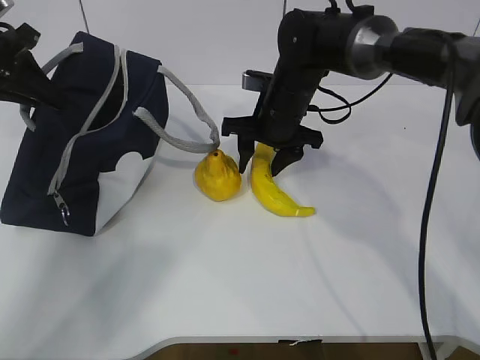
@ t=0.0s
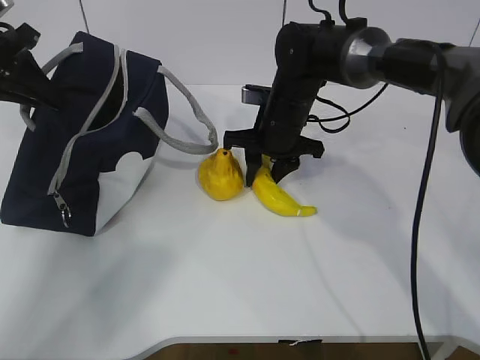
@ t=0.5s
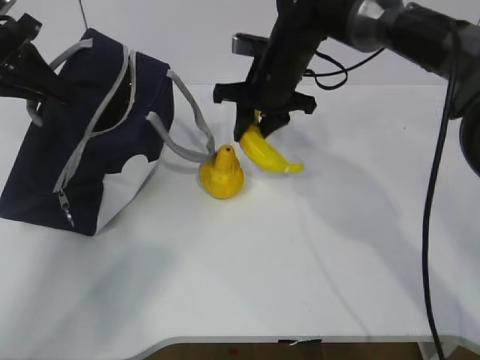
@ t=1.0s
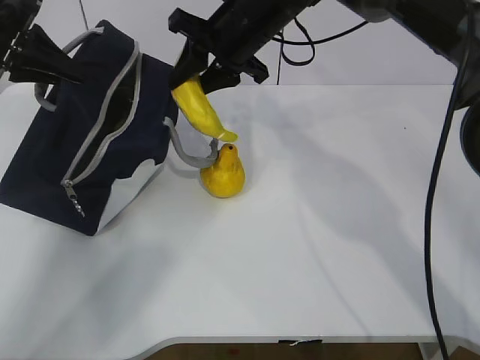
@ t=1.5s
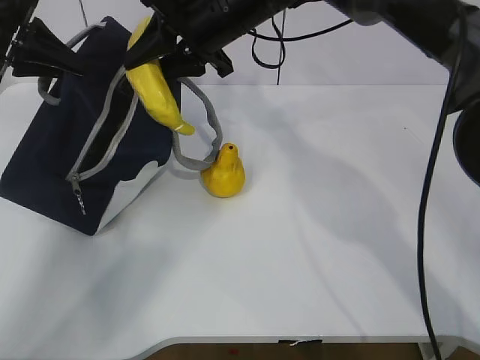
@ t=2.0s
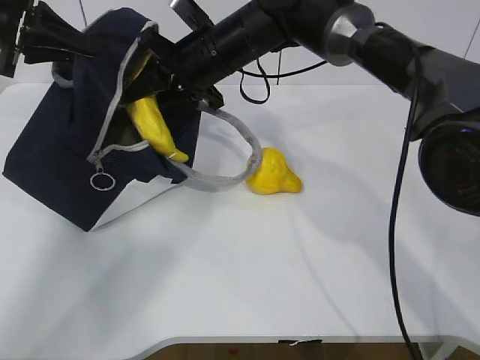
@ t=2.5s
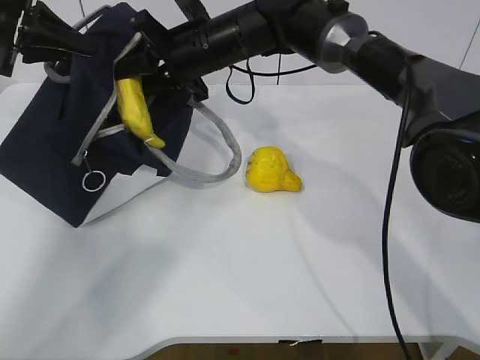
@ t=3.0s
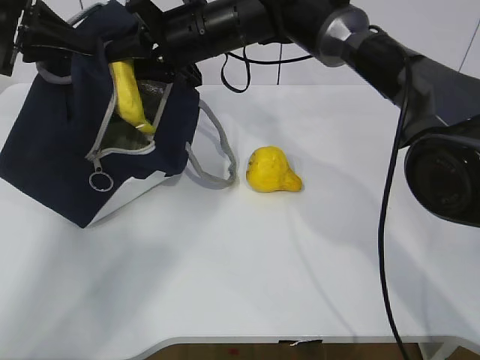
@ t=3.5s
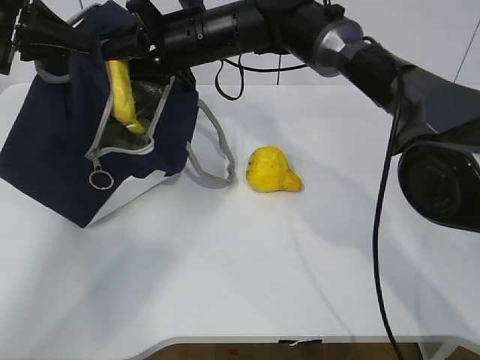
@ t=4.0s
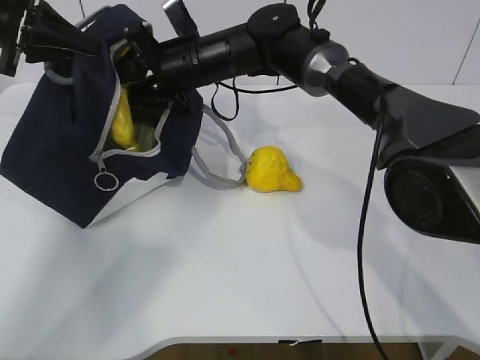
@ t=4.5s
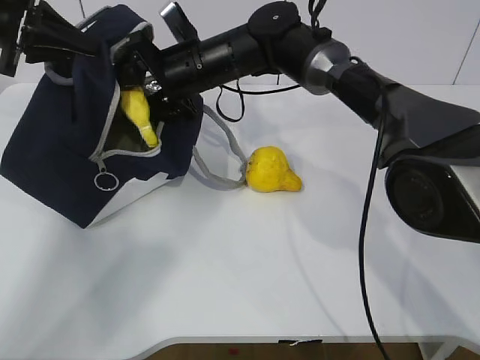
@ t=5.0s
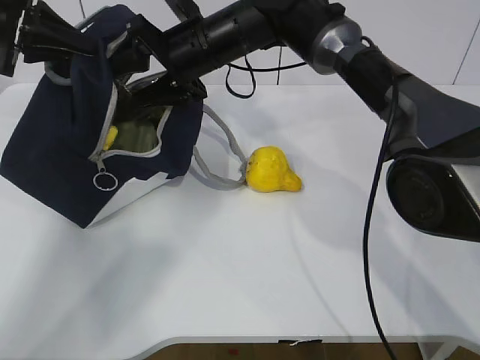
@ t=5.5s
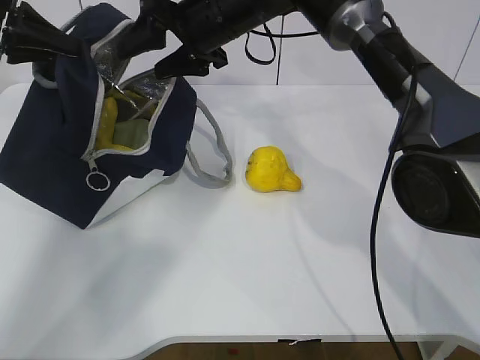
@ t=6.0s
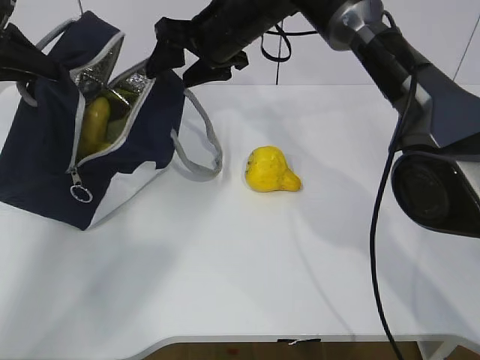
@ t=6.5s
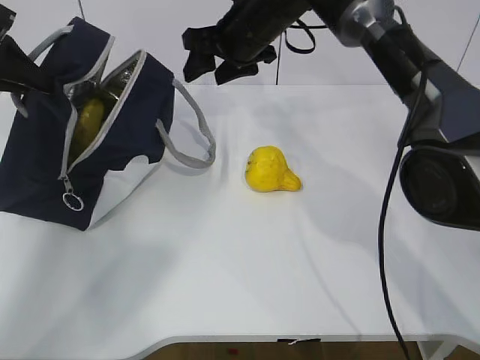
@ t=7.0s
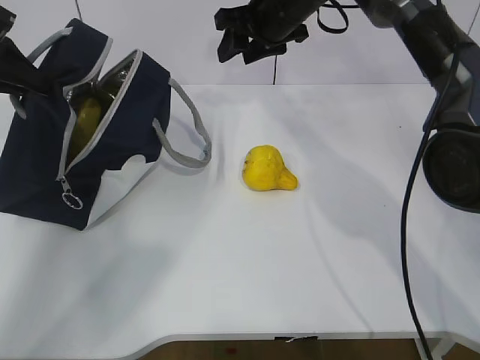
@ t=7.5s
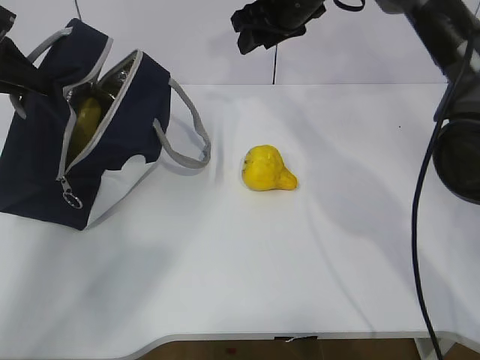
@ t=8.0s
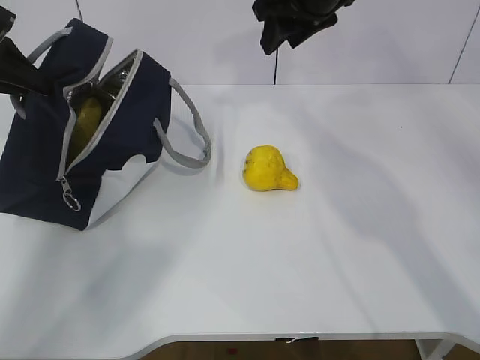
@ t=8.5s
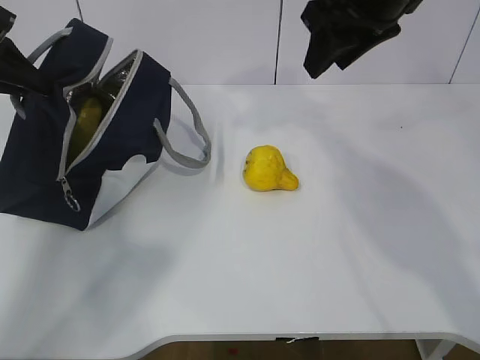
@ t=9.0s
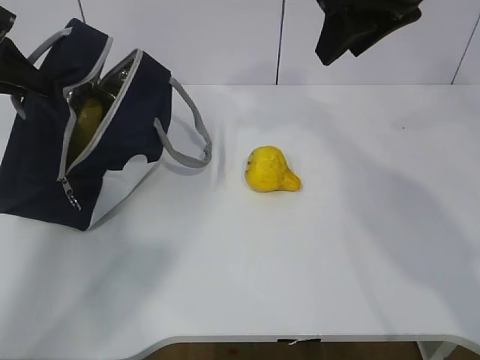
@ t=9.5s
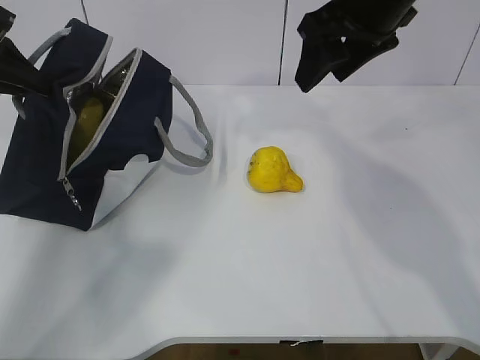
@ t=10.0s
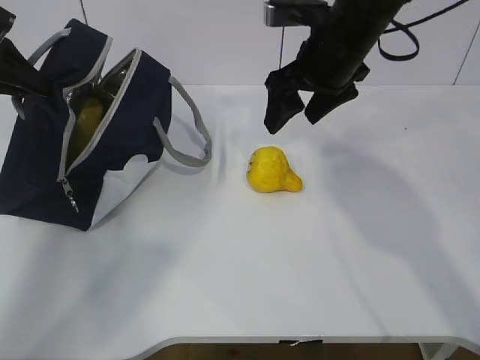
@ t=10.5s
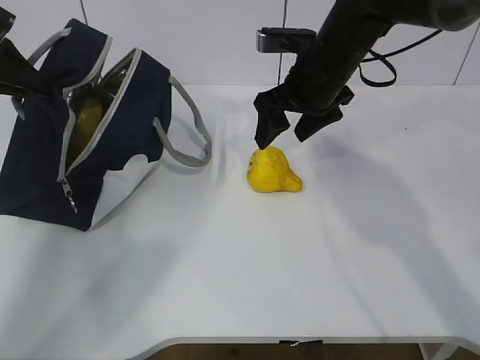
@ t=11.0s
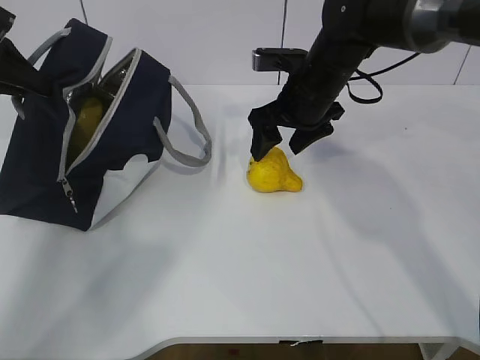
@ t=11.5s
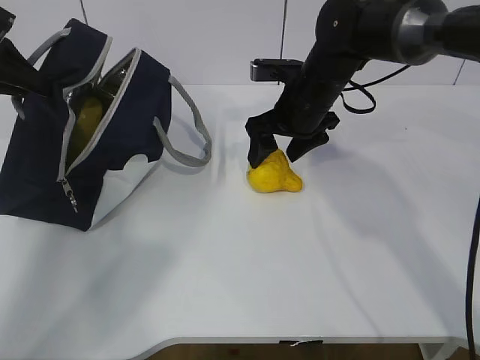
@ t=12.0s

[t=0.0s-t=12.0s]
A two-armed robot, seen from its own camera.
Step, t=1.5s to t=7.0s: Grab the pear with your right hand.
Step, t=10.5s to t=11.5s: Grab the lunch bag with your right hand.
t=0.0s to t=2.0s: The right gripper shifts some 15 cm upward and to the left.
t=2.0s to t=4.0s: The right gripper shifts by some 5 cm.
t=4.0s to t=6.0s: The right gripper opens its fingers.
t=6.0s to t=8.0s: The right gripper moves to the right, some 10 cm.
t=8.0s to t=10.0s: The right gripper goes roughly 15 cm backward.
t=10.0s to t=12.0s: The right gripper goes roughly 20 cm downward and forward.

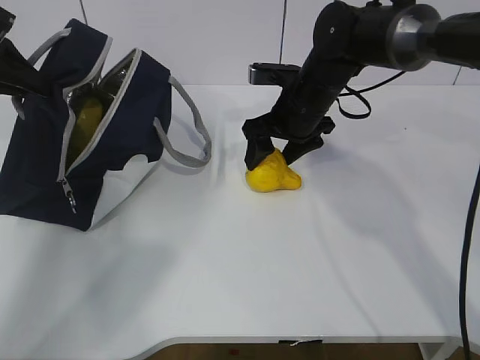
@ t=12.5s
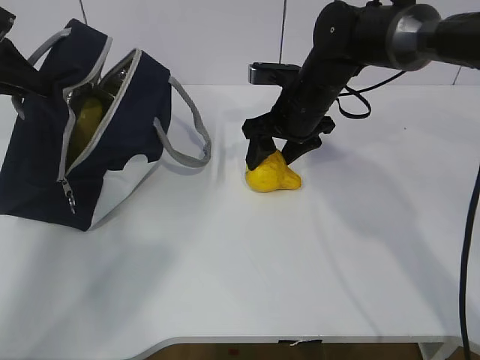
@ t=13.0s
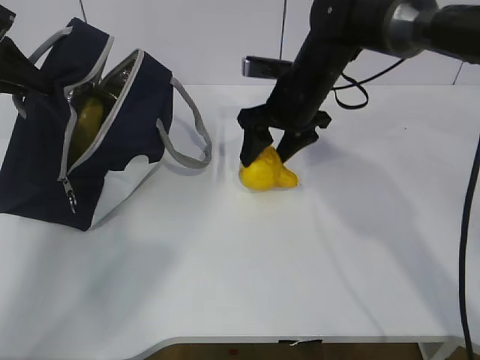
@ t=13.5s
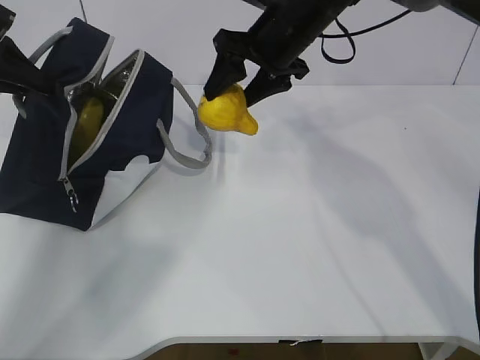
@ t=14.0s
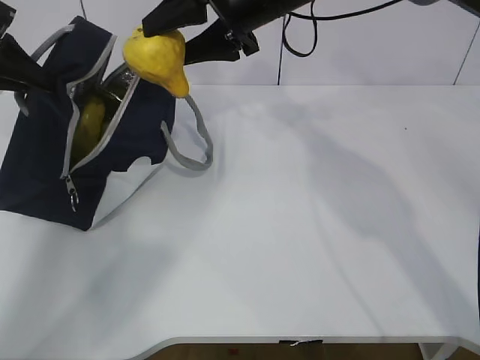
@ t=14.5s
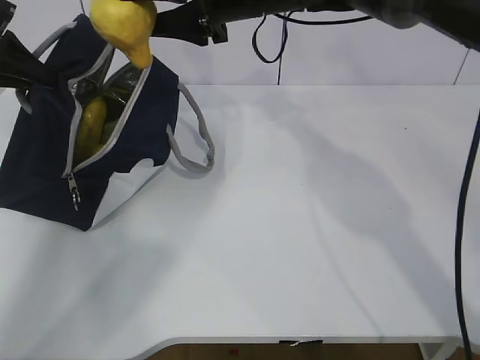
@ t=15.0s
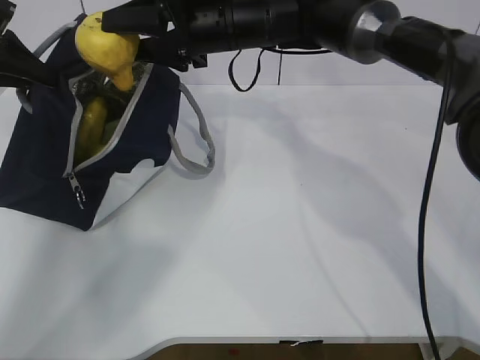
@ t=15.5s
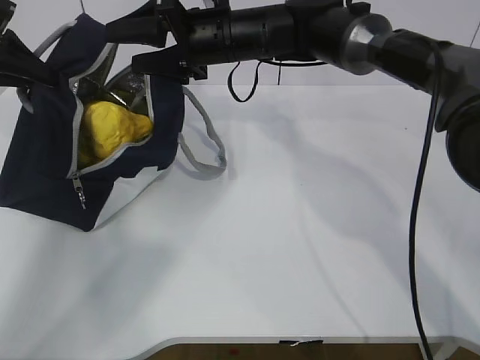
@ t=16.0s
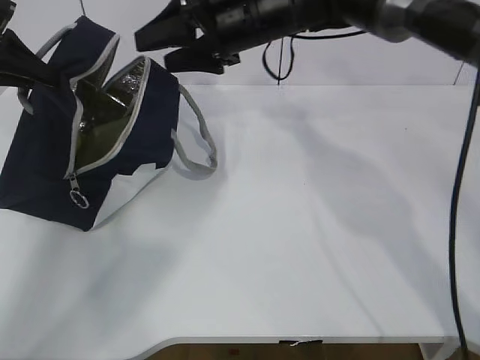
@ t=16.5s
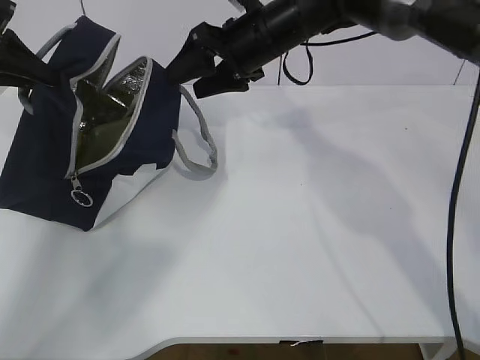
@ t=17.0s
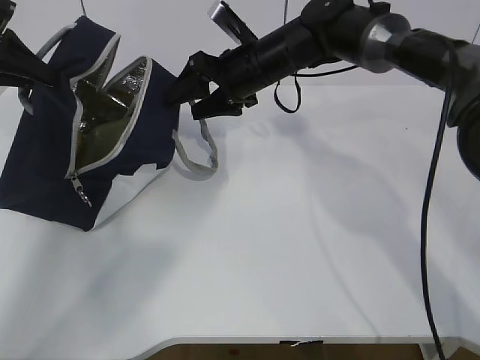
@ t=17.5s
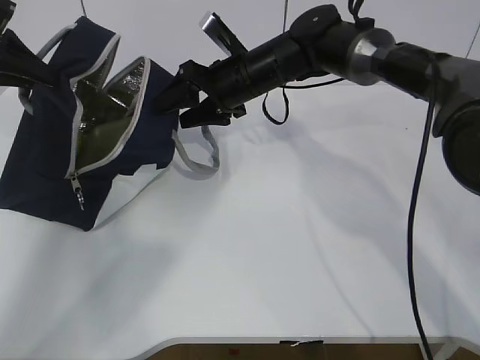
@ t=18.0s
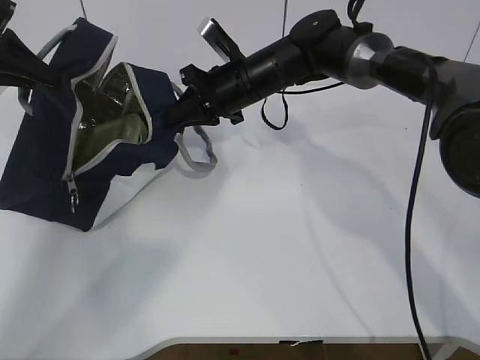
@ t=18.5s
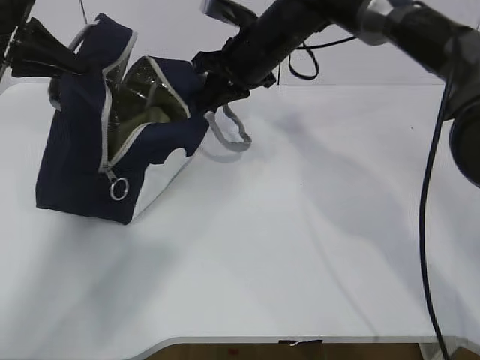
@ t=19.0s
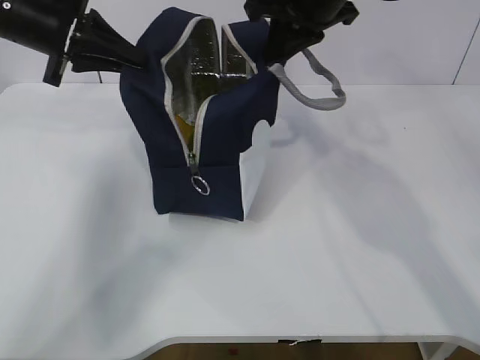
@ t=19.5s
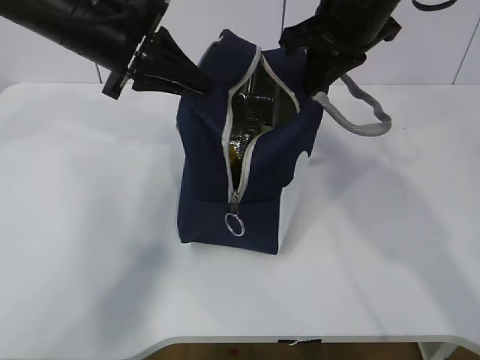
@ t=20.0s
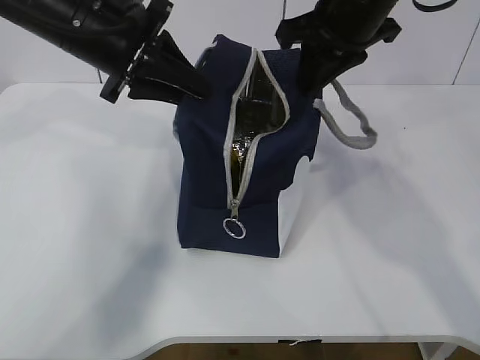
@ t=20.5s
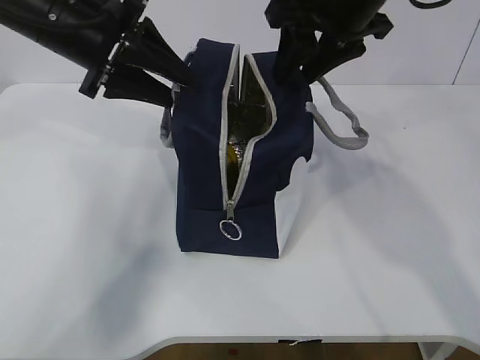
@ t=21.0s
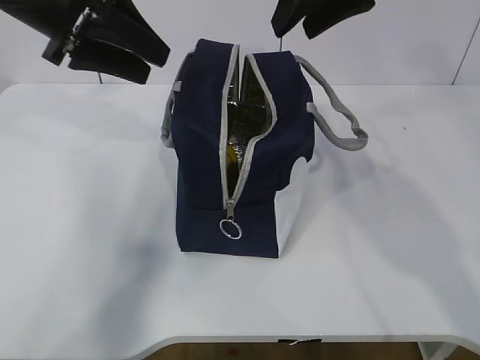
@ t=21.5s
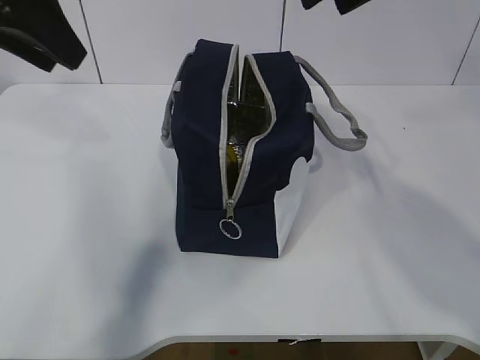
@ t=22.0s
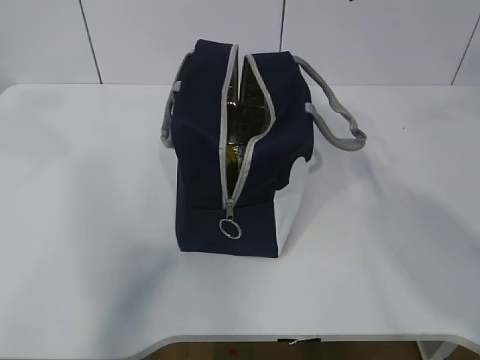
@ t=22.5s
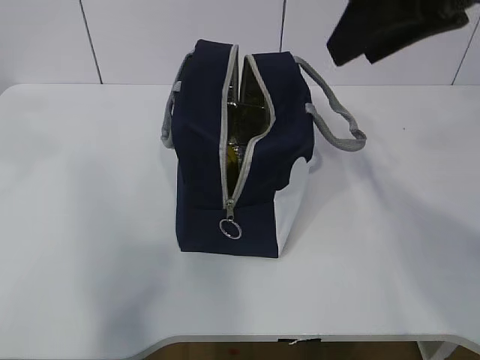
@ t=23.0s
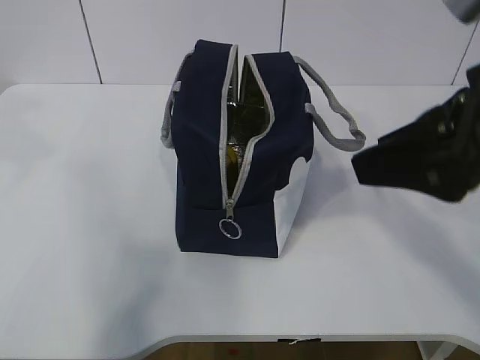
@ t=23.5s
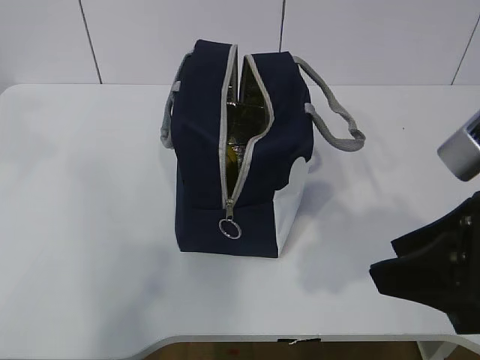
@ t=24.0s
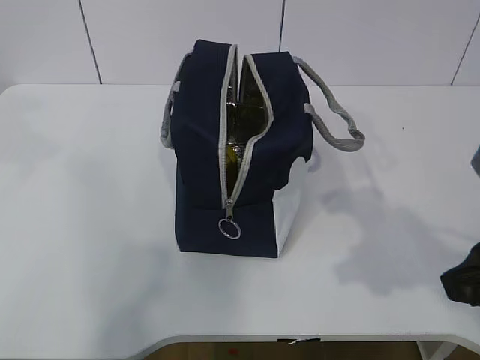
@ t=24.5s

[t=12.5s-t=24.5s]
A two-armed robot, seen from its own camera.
Step, t=12.5s to t=13.5s: Move the lunch bag to the right.
t=12.5s to t=14.5s: The right gripper moves upward, roughly 15 cm.
t=16.5s to t=18.5s: The right gripper heads downward, covering about 10 cm, and closes up.
t=18.5s to t=20.5s: The left gripper is displaced to the right by about 20 cm; the right gripper is displaced upward, to the right and backward by roughly 20 cm.
t=20.5s to t=22.5s: The left gripper is displaced backward, upward and to the left by some 20 cm; the right gripper heads upward and backward, covering about 15 cm, and opens its fingers.
t=22.5s to t=24.5s: The right gripper is displaced downward and backward by some 25 cm.

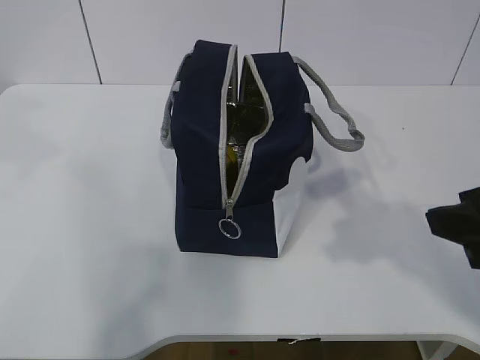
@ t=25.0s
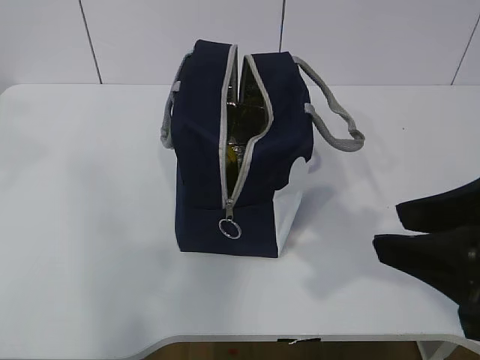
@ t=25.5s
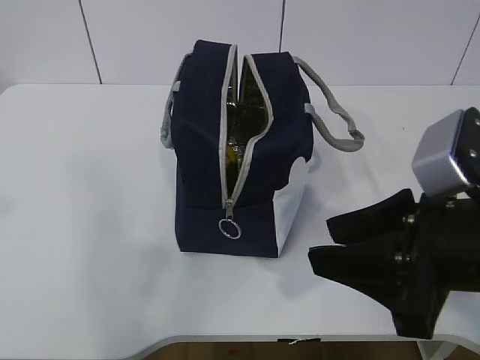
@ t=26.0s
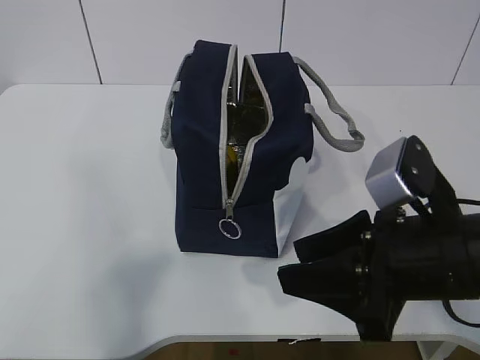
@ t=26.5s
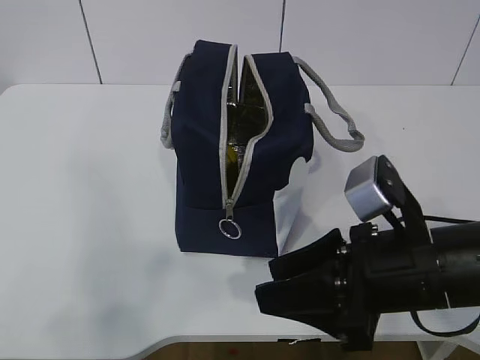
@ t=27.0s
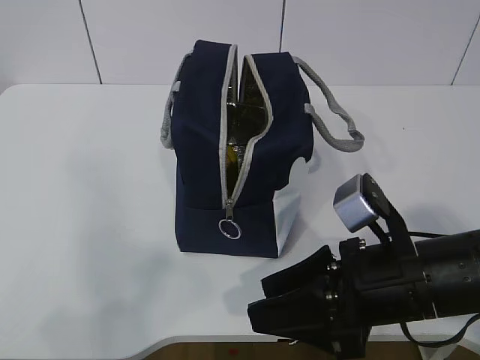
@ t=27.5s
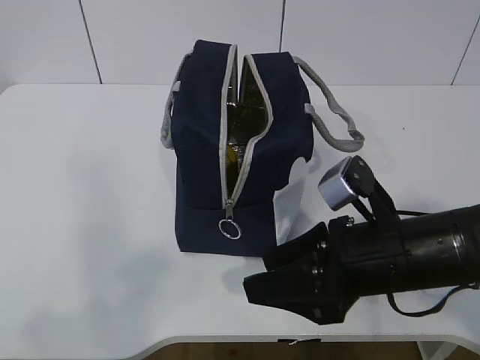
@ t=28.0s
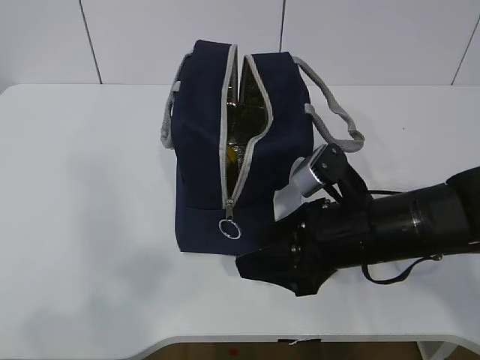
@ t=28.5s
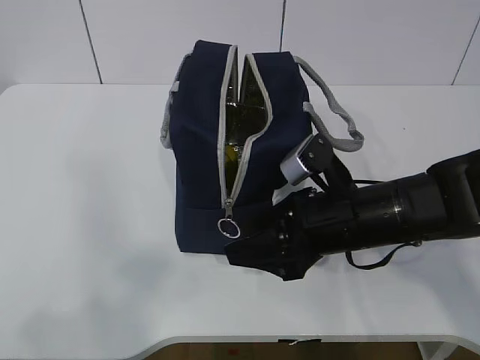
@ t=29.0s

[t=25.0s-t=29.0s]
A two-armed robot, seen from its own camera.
t=25.0s to t=27.0s: The right gripper goes about 10 cm downward and to the left, while the left gripper travels backward and downward by some 25 cm.
t=27.0s to t=29.0s: The right gripper heads forward, covering approximately 10 cm.
